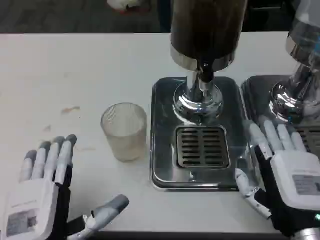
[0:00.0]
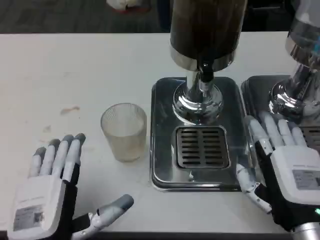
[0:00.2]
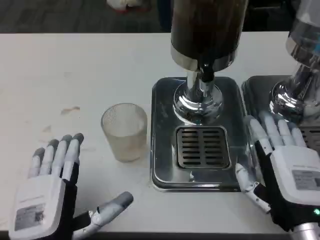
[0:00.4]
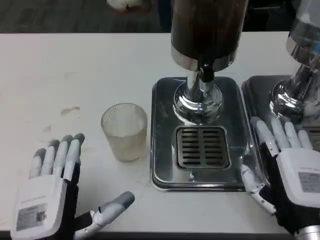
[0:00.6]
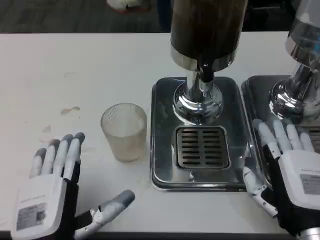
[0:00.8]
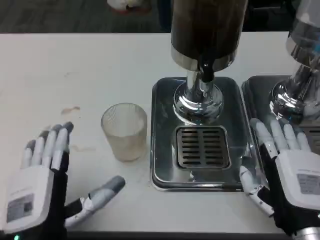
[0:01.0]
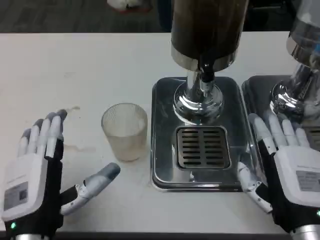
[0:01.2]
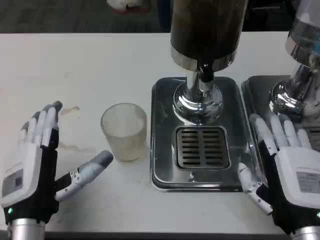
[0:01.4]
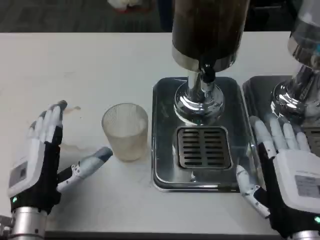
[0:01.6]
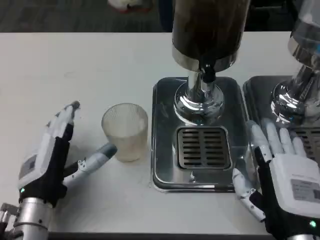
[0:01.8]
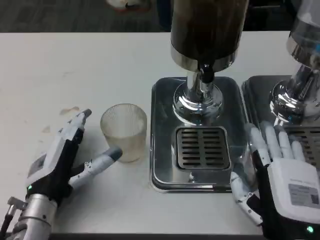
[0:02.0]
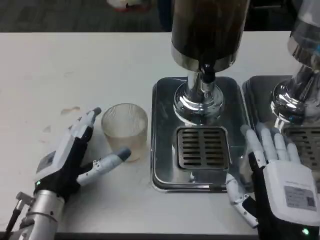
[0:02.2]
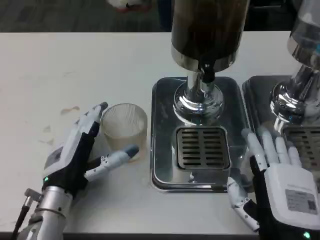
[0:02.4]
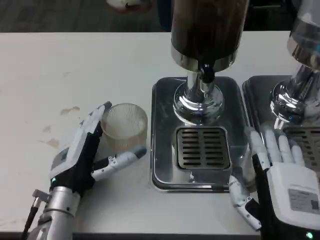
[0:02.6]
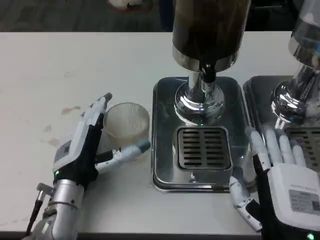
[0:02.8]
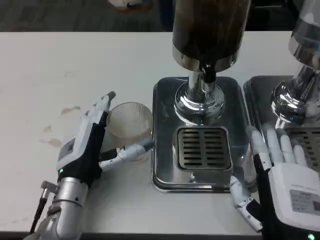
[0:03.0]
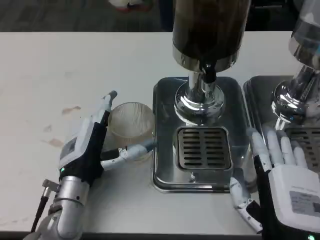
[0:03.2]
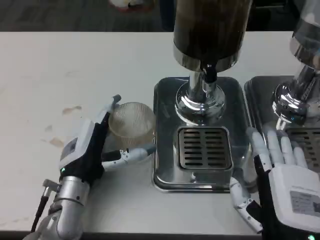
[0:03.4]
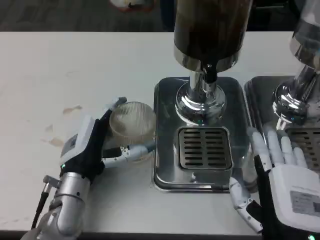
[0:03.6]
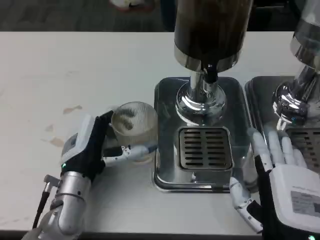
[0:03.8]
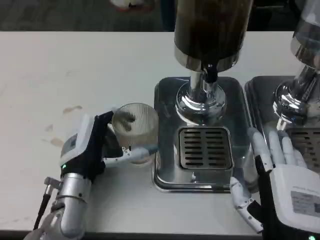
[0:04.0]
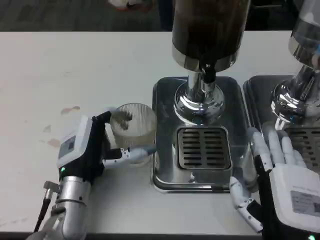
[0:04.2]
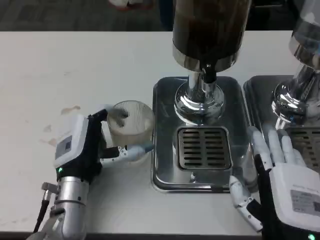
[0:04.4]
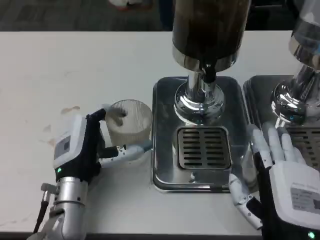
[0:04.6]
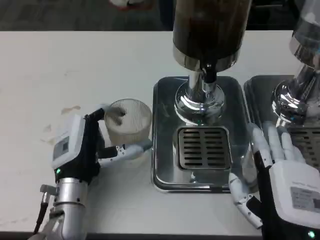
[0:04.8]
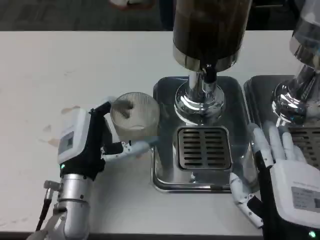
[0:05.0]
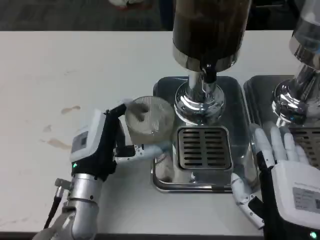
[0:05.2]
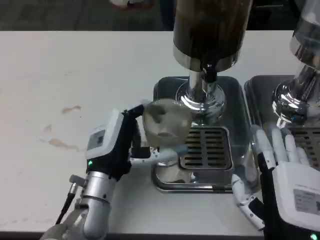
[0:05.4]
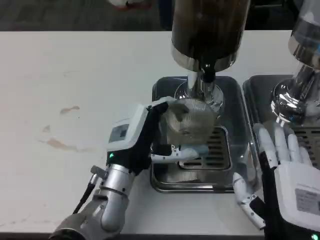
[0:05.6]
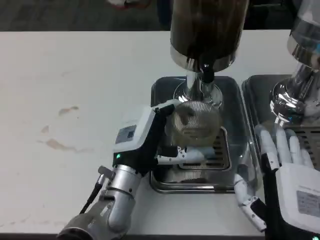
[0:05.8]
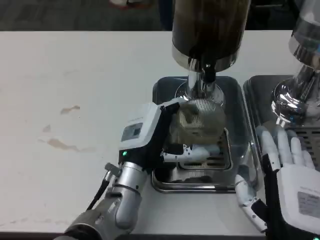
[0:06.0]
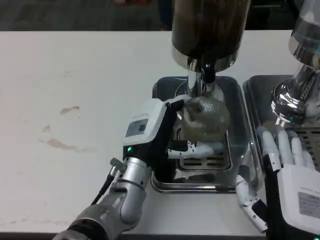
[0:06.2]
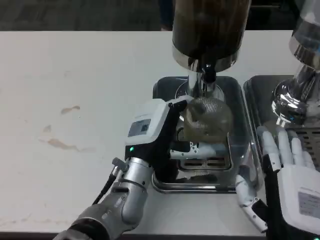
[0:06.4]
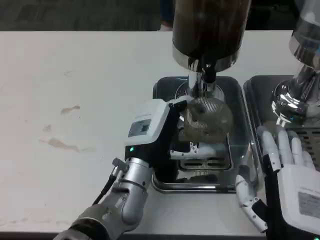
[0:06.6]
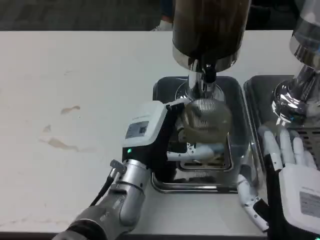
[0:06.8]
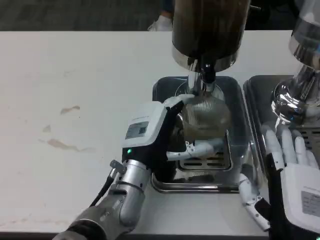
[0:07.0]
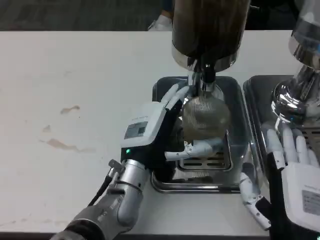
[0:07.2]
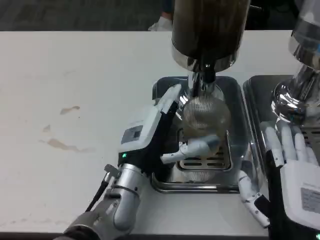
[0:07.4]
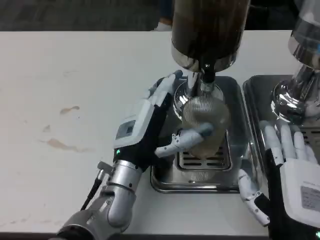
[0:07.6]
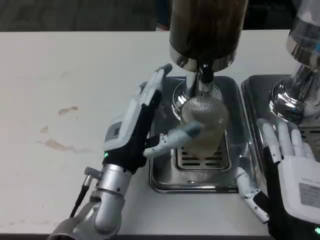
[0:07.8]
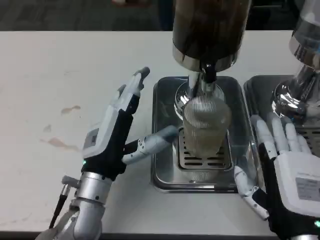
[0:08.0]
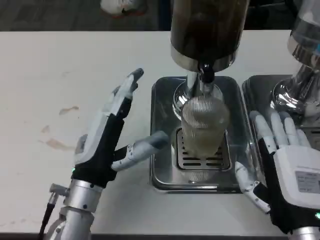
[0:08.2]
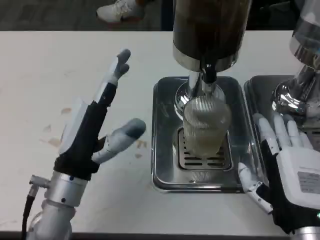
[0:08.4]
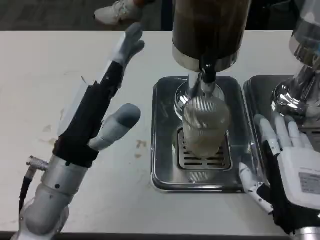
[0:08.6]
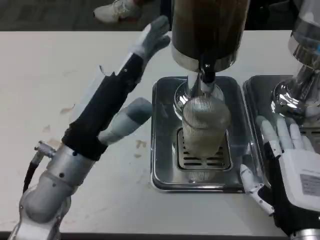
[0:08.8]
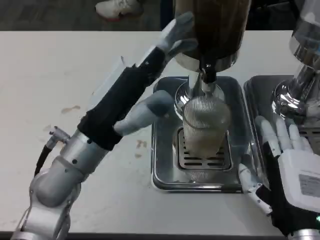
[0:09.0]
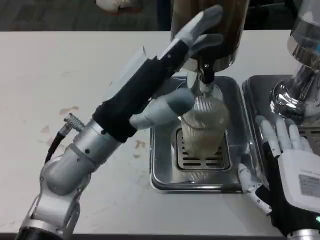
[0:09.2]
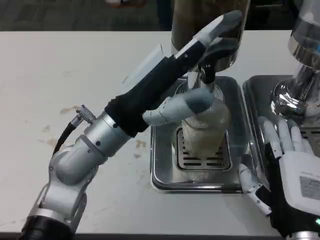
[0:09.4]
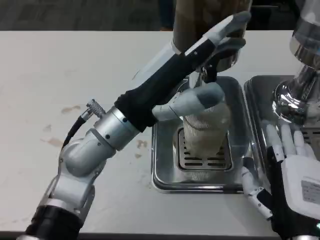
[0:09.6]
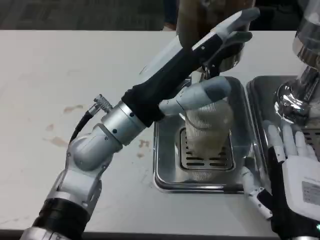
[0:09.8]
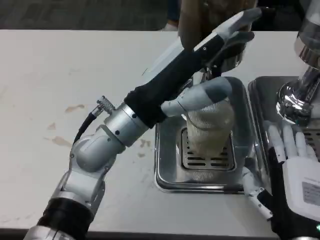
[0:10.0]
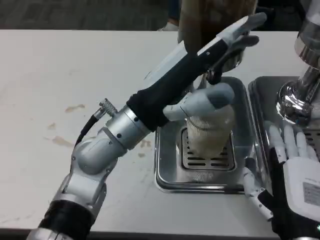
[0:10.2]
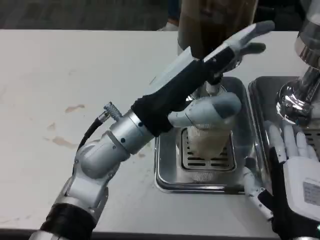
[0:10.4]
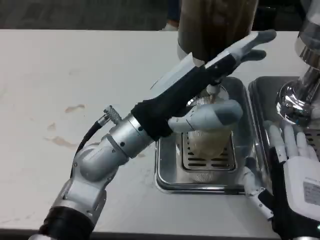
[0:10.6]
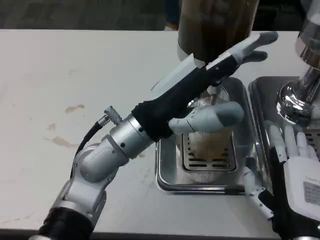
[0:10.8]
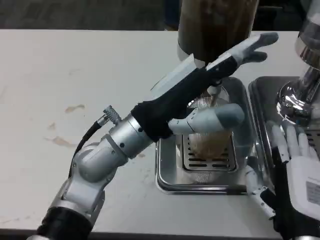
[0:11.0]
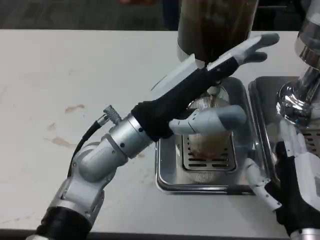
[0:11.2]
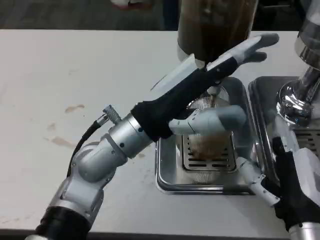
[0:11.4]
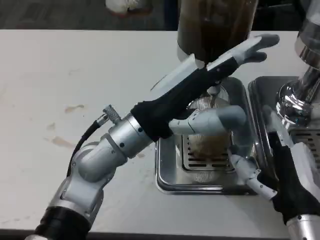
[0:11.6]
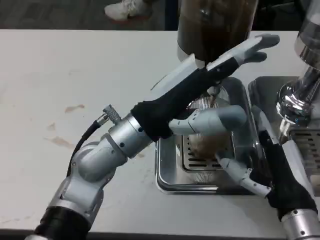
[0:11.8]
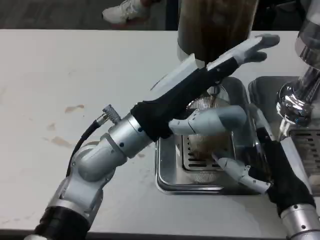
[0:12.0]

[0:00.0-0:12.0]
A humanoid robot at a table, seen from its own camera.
Task of the whole recording: Grasp the cup under the faucet to collect the drink, then remove the cup.
0:00.0 to 0:01.6: The left hand moves forward, roughly 10 cm.
0:01.6 to 0:03.0: The left hand heads forward, covering about 5 cm.
0:03.0 to 0:04.4: The hands make only small movements.
0:04.4 to 0:06.0: The left hand travels to the right by roughly 10 cm.
0:06.0 to 0:07.6: The hands move only a little.
0:07.6 to 0:09.0: The left hand goes about 10 cm upward and to the left.
0:09.0 to 0:10.4: The left hand travels to the right by about 5 cm.
0:10.4 to 0:12.0: The right hand moves approximately 5 cm.

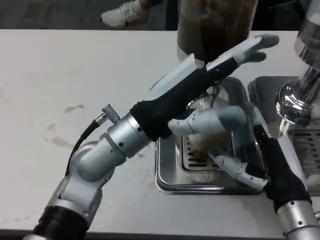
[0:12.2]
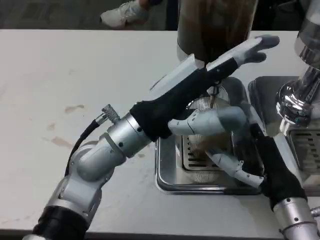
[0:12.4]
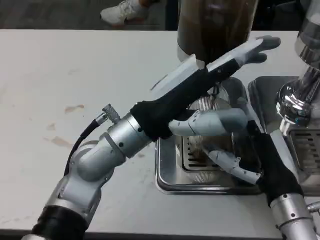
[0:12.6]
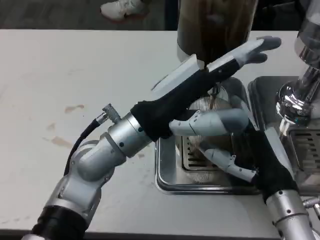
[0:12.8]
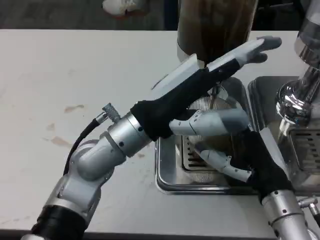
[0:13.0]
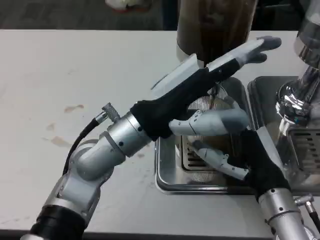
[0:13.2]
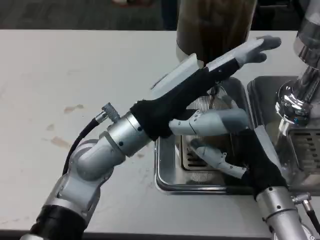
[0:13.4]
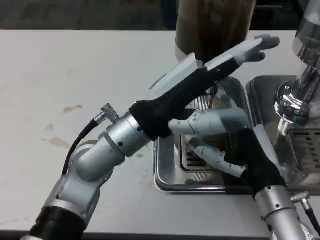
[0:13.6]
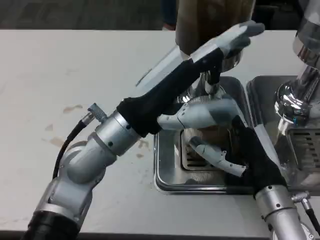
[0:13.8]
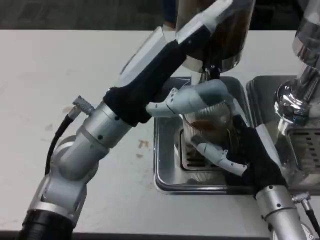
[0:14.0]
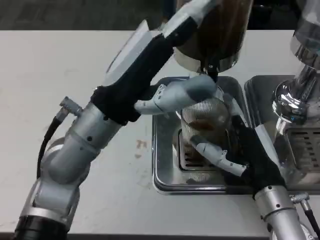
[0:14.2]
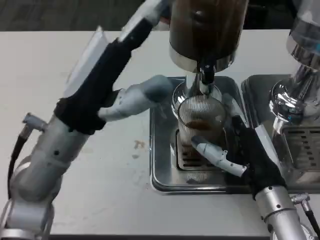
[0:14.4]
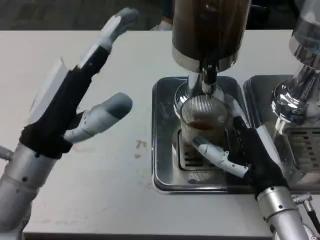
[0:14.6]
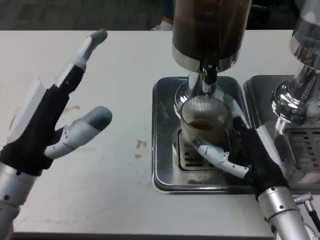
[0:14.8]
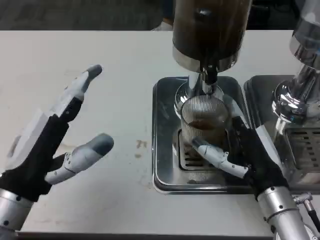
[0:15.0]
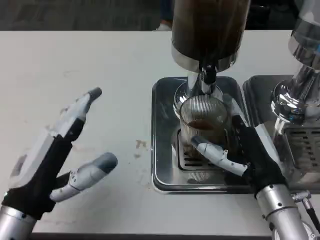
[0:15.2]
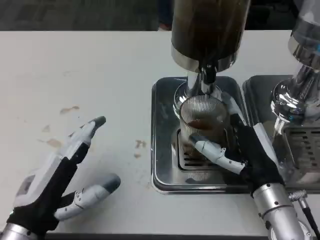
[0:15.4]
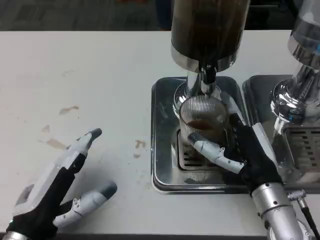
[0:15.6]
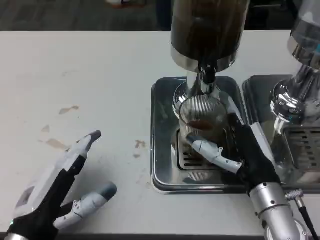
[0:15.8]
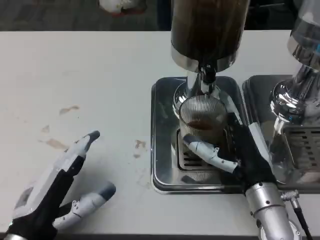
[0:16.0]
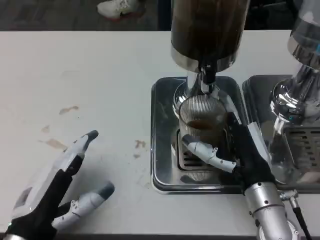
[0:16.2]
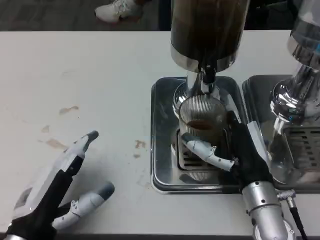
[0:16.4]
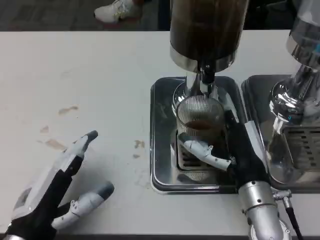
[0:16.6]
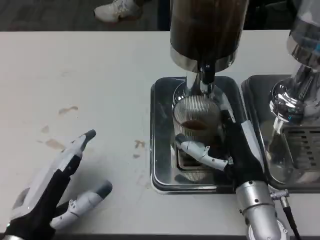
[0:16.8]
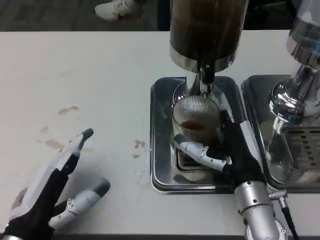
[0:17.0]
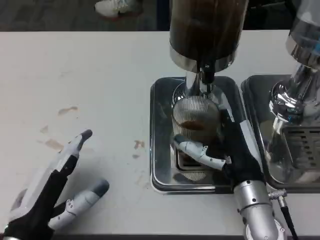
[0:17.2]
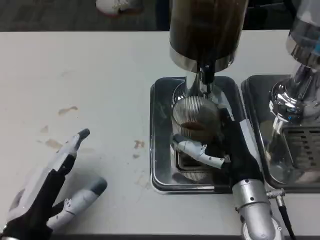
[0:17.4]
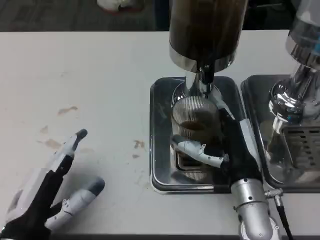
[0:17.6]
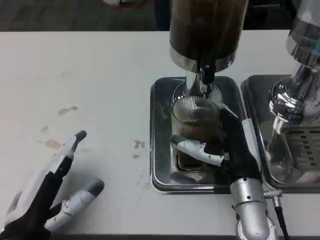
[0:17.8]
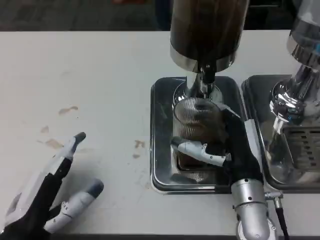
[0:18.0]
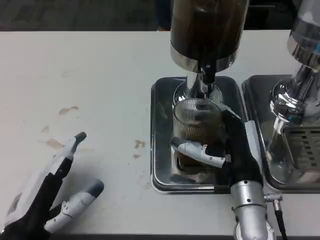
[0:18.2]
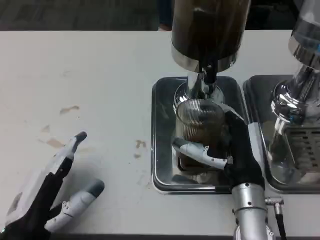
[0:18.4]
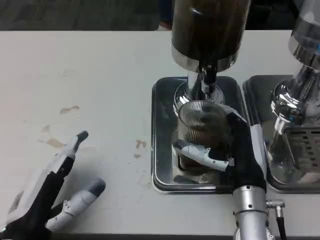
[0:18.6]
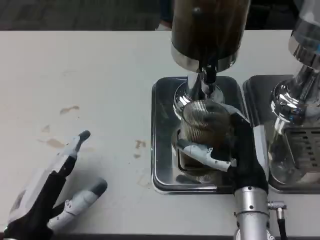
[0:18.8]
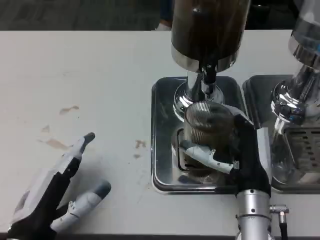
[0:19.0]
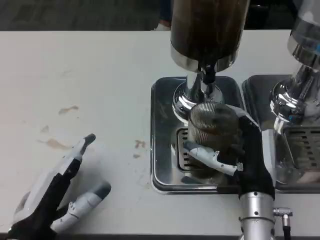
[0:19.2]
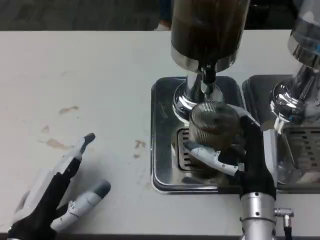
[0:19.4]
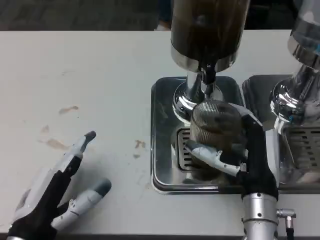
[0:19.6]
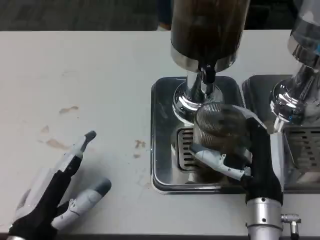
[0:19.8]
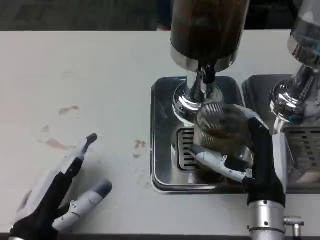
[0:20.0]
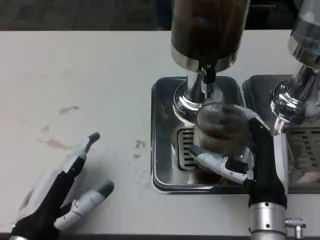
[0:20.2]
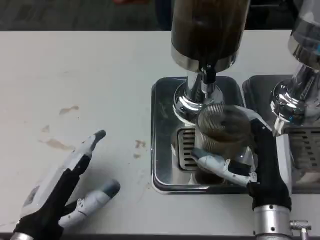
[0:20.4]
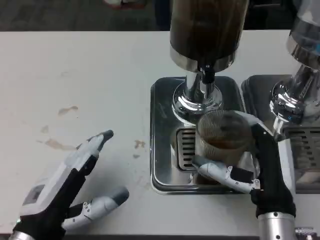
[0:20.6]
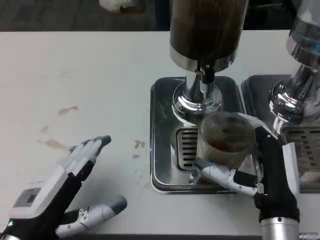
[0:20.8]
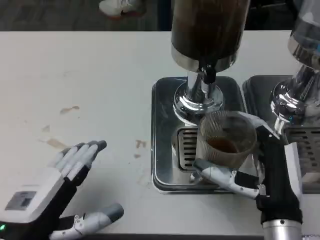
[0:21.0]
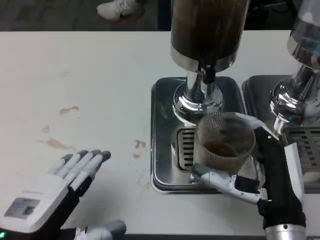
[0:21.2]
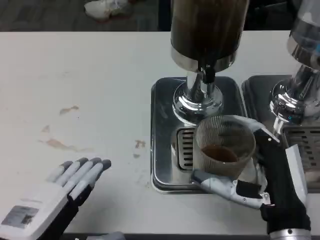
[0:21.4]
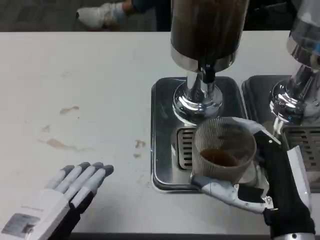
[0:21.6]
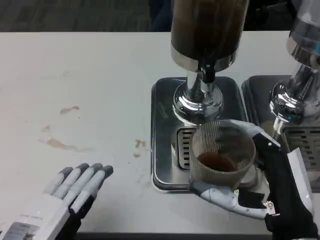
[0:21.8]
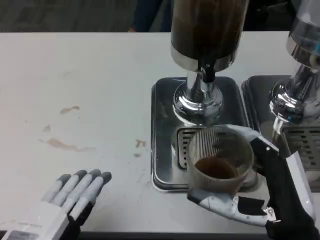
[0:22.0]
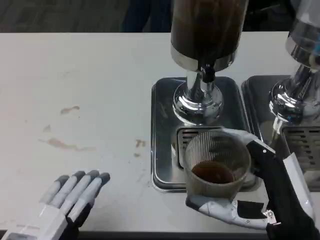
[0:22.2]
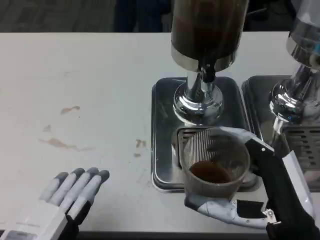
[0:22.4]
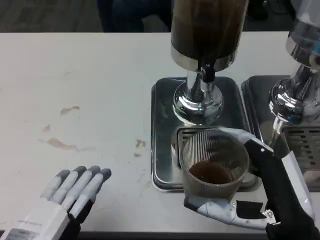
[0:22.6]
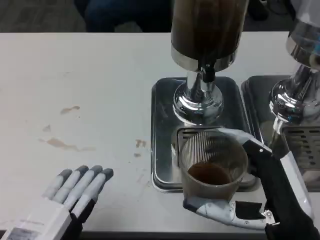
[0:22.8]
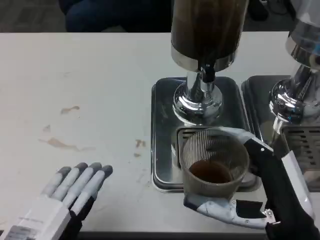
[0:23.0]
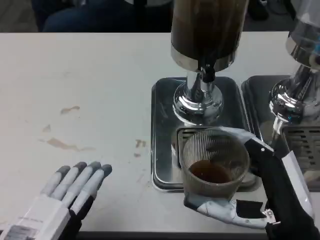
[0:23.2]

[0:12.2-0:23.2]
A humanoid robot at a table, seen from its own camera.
Task of the whole recording: Grasp the cup under the faucet to collect the drink, then remove the cup.
0:13.8 to 0:15.4: The left hand goes approximately 20 cm backward, to the left and downward.
0:17.0 to 0:20.0: There are only small adjustments of the hands.
0:20.0 to 0:21.6: The right hand travels backward by some 5 cm, while the left hand heads upward and backward, covering approximately 10 cm.
0:21.6 to 0:23.2: The hands make only small movements.
